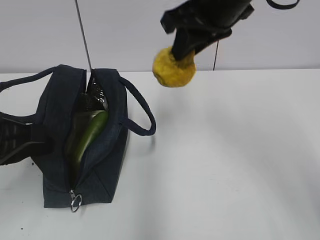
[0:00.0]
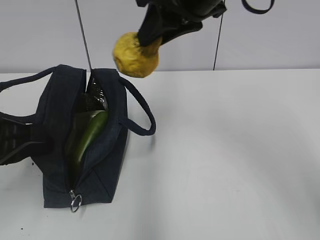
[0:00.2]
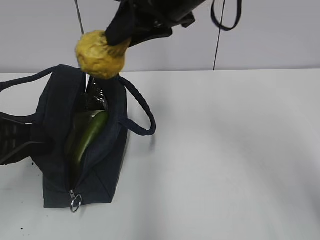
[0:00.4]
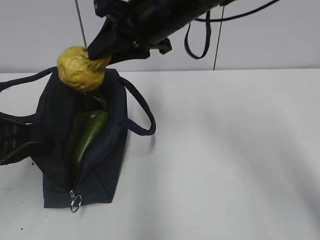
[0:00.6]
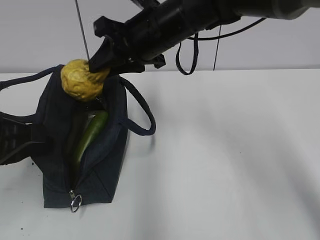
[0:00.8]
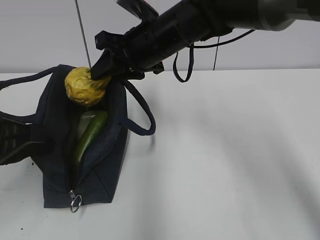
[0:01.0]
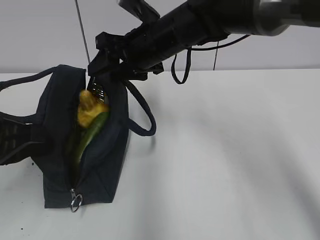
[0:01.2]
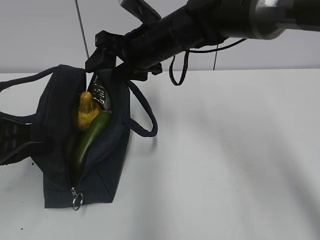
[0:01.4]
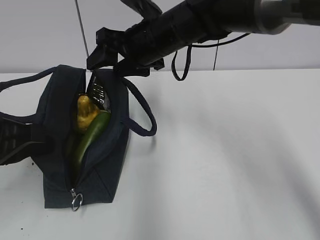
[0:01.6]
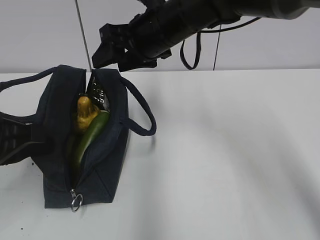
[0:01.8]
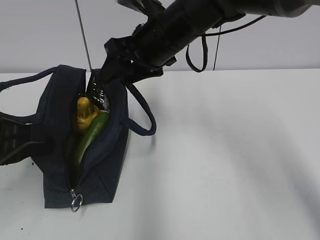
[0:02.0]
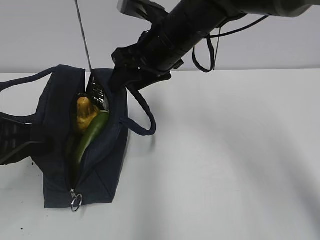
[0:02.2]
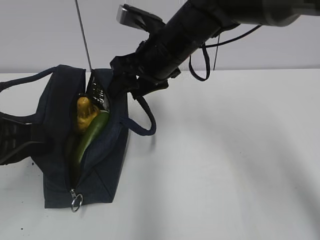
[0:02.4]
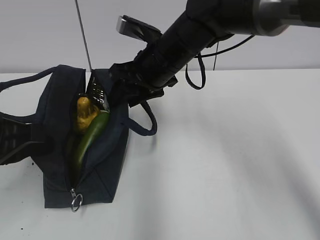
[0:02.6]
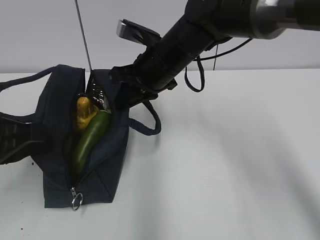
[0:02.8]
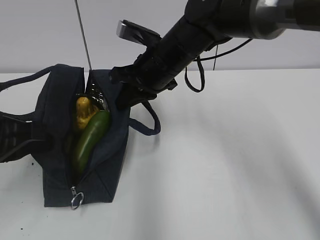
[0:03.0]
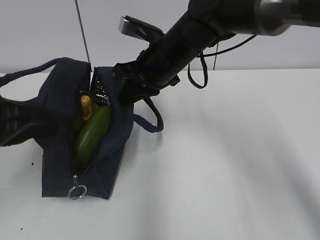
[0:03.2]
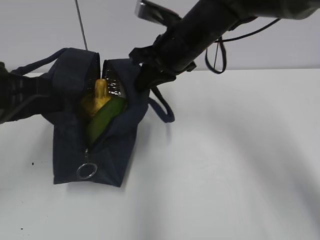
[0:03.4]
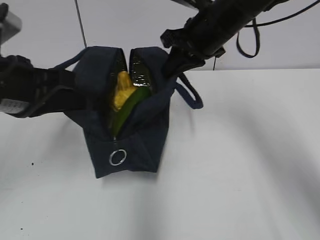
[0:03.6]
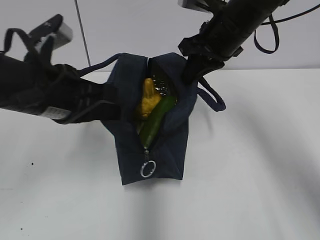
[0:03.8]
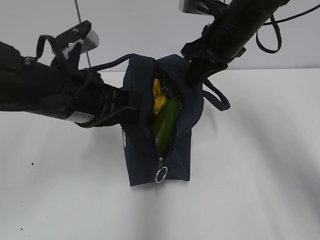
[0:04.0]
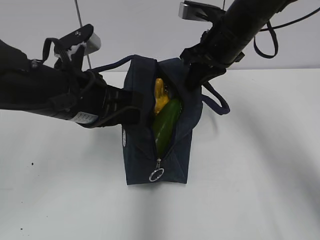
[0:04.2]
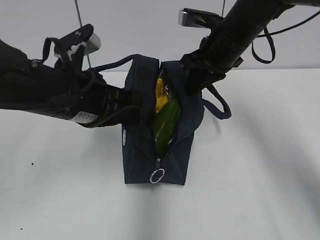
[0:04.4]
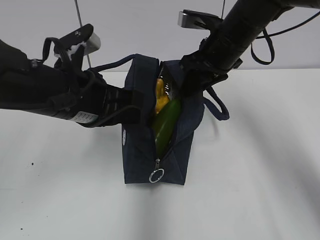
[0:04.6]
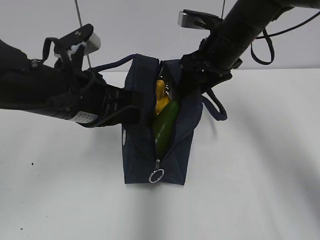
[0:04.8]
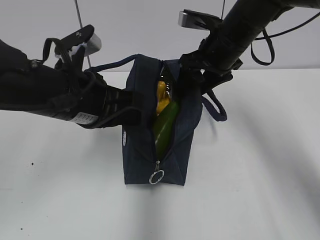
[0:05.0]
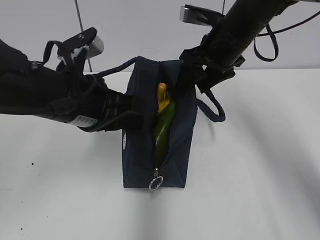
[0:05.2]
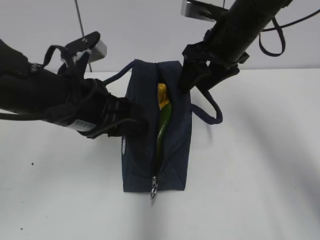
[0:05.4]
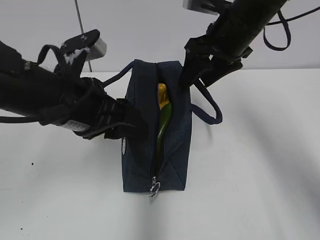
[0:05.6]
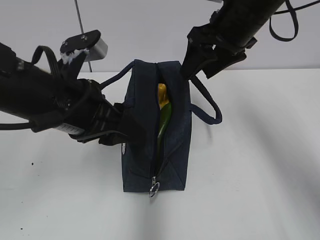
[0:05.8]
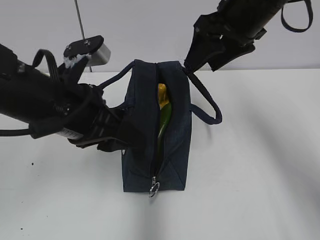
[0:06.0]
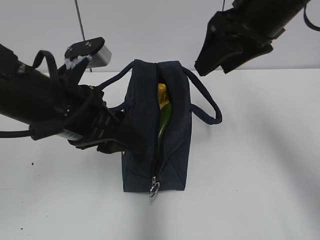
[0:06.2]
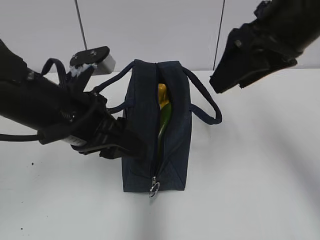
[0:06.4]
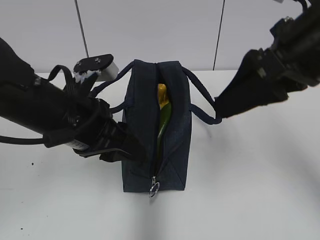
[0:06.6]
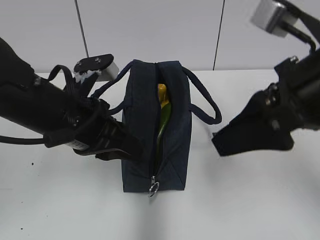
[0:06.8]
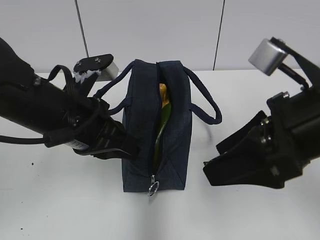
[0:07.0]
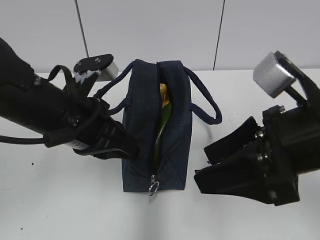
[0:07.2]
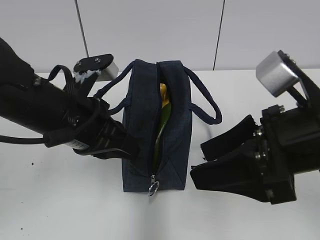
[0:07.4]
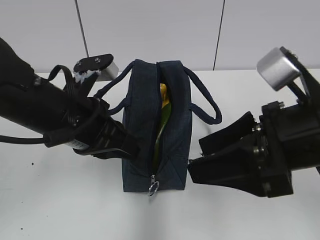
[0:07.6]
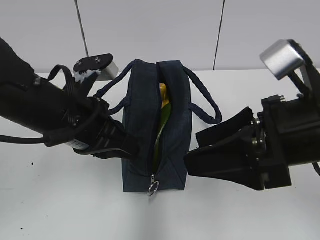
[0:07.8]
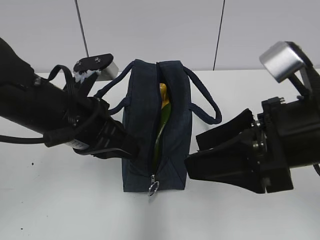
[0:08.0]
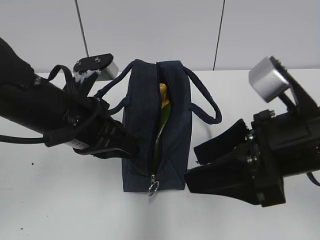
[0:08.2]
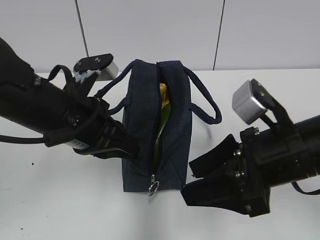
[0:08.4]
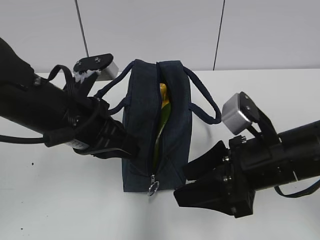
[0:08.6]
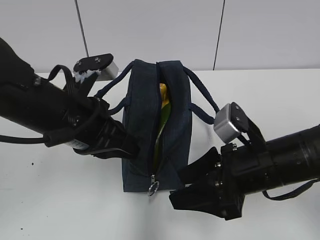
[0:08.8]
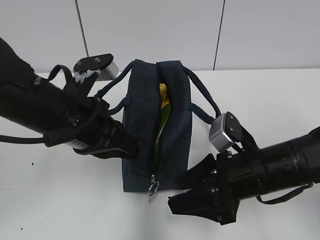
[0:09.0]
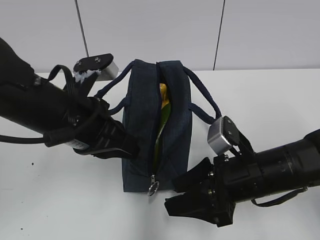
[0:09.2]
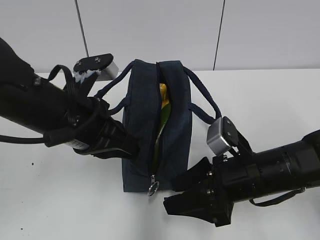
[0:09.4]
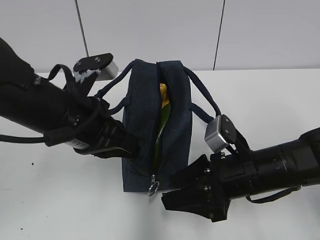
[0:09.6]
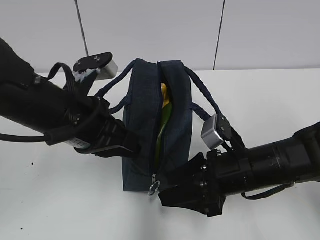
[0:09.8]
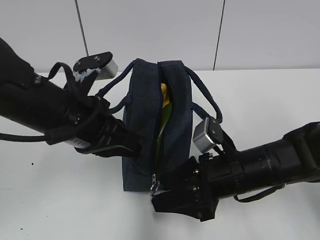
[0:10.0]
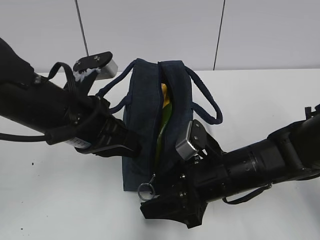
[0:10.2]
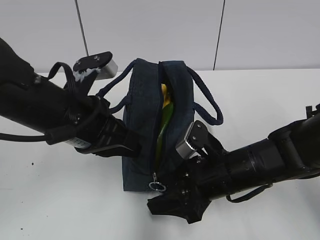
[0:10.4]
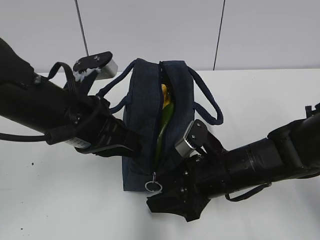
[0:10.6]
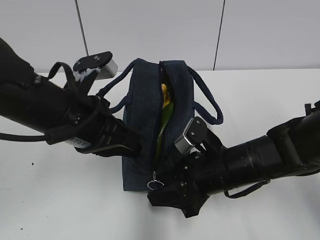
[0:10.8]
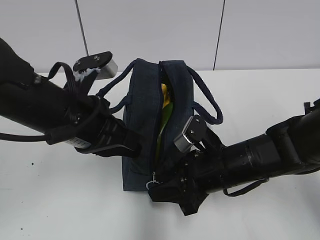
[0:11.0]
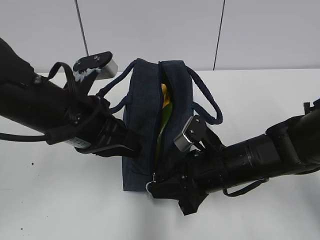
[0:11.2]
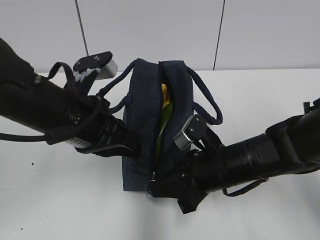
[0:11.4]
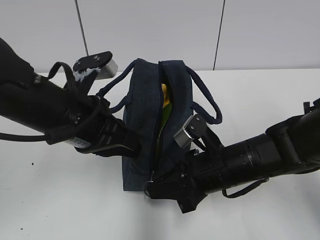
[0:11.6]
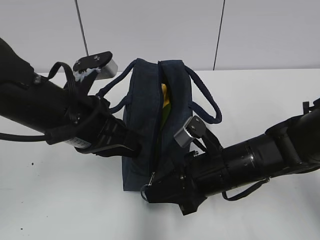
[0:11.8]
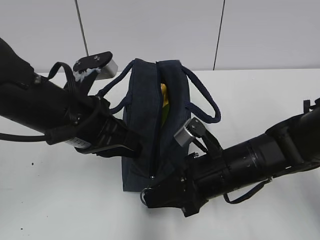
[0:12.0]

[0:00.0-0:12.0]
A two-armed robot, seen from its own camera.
Step, 0:01.6 to 0:02.6: Grab the lunch bag with your right hand.
Step, 0:03.0 to 0:05.4: Move the lunch bag to the right.
0:00.0 to 0:01.6: The right gripper goes some 15 cm downward, to the left and forward, and opens up.
0:01.6 to 0:03.0: The right gripper closes up.
0:03.0 to 0:04.4: The right gripper heads to the right, covering about 10 cm. The left gripper moves to the right and forward, about 10 cm.
0:04.4 to 0:06.0: The left gripper opens its fingers, while the right gripper heads upward, covering roughly 5 cm, and opens its fingers.
0:06.0 to 0:07.6: The left gripper closes its fingers. The right gripper is displaced backward and downward by about 20 cm.
0:07.6 to 0:09.0: The right gripper heads downward, covering approximately 10 cm.
0:09.0 to 0:10.4: The grippers stay close to where they were, moving slightly.
0:10.4 to 0:12.0: The right gripper closes up.

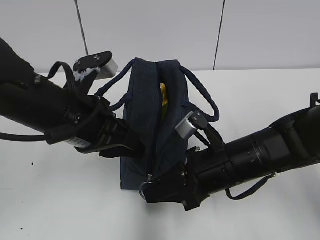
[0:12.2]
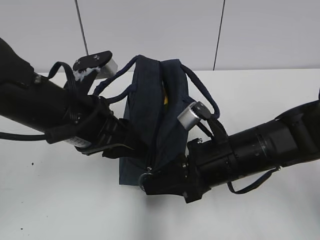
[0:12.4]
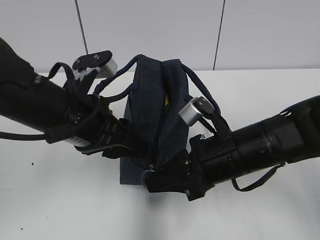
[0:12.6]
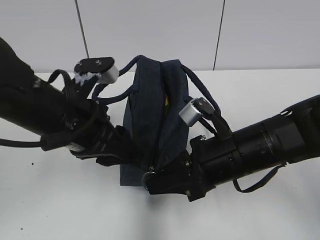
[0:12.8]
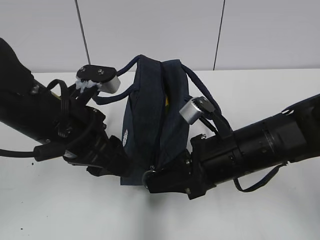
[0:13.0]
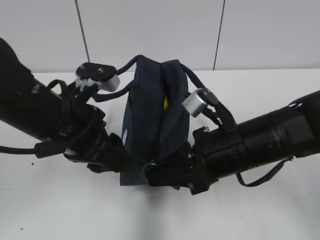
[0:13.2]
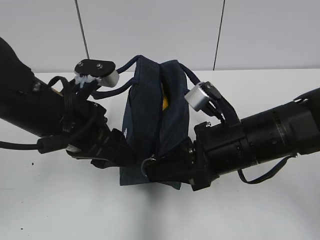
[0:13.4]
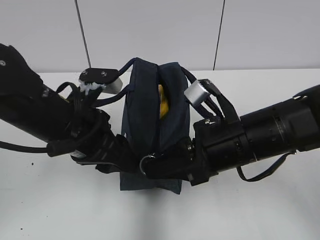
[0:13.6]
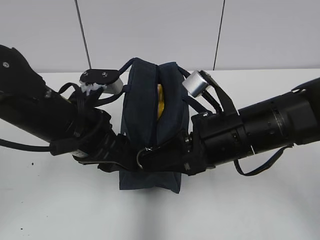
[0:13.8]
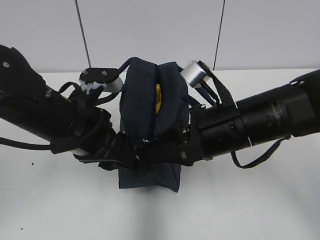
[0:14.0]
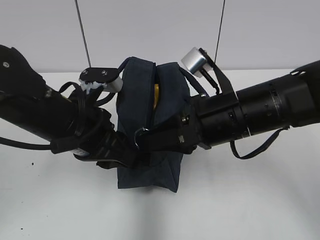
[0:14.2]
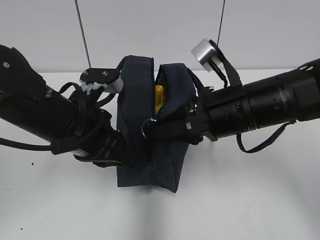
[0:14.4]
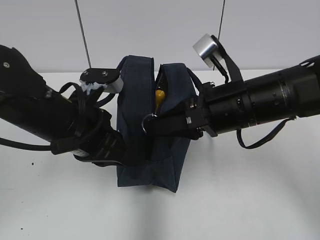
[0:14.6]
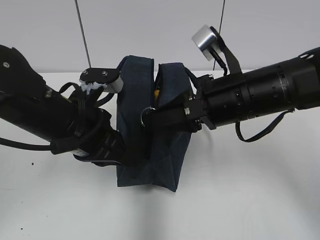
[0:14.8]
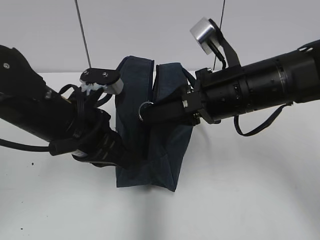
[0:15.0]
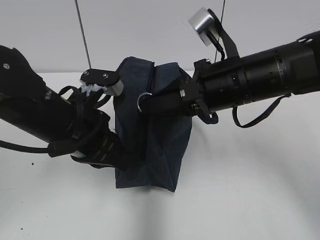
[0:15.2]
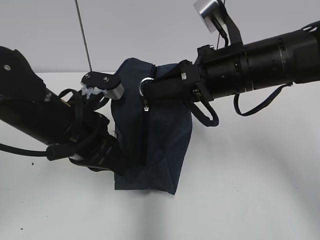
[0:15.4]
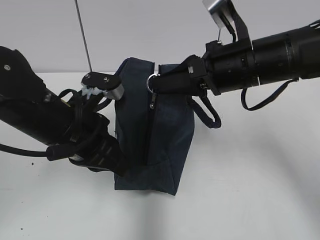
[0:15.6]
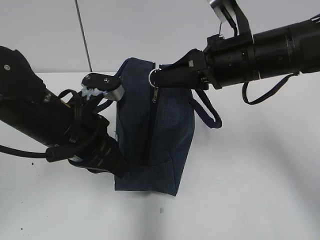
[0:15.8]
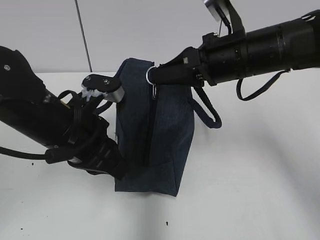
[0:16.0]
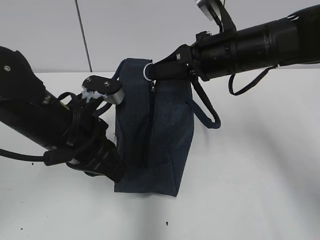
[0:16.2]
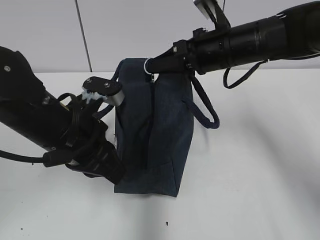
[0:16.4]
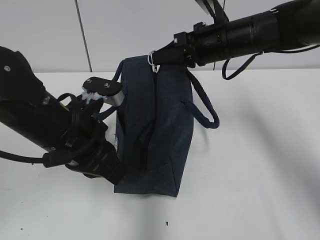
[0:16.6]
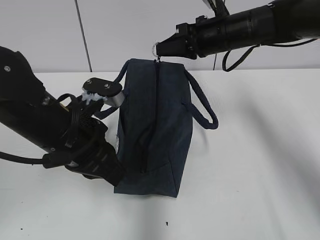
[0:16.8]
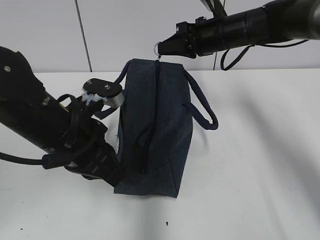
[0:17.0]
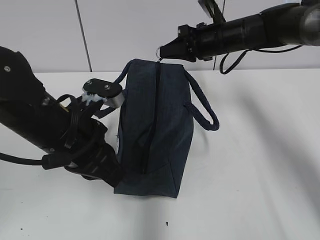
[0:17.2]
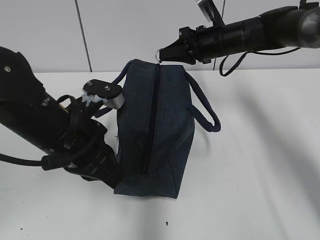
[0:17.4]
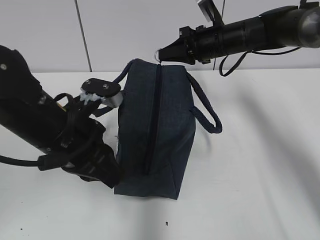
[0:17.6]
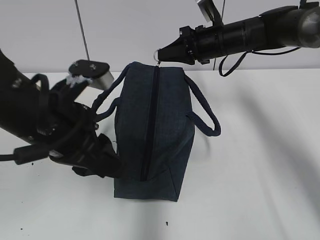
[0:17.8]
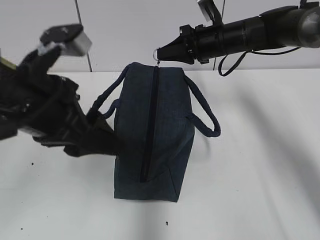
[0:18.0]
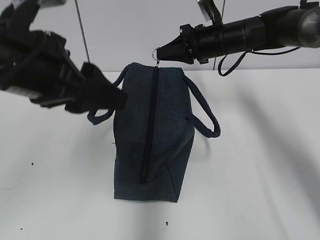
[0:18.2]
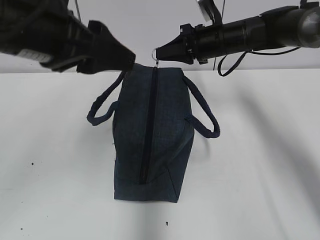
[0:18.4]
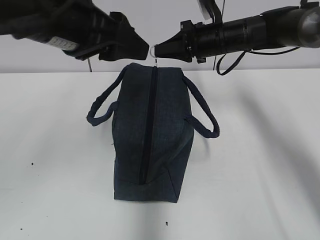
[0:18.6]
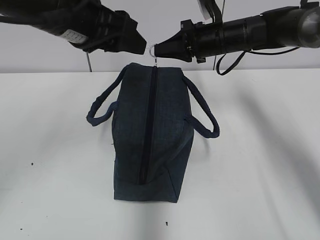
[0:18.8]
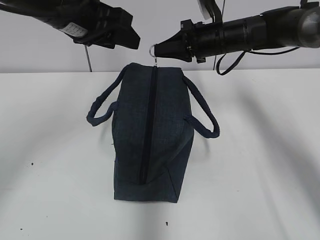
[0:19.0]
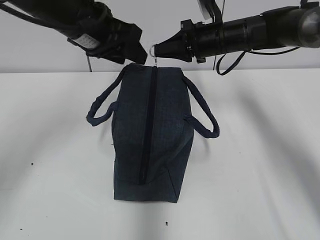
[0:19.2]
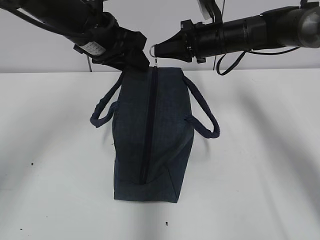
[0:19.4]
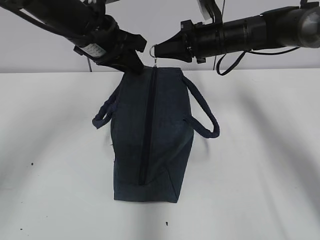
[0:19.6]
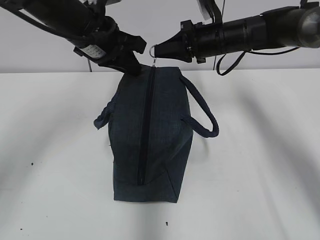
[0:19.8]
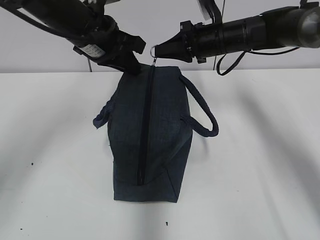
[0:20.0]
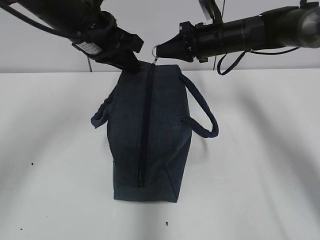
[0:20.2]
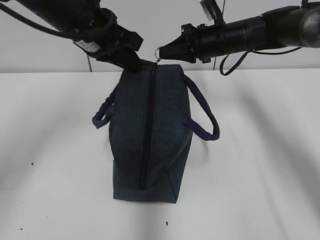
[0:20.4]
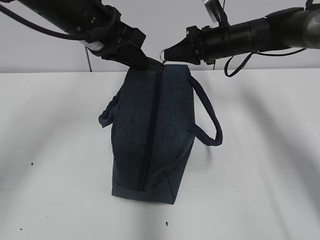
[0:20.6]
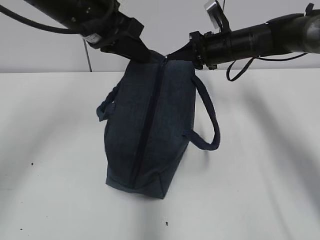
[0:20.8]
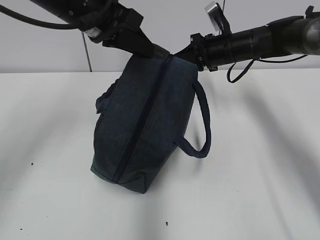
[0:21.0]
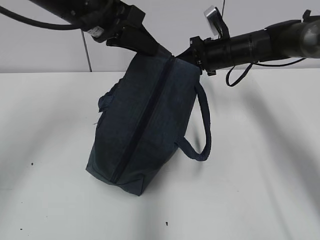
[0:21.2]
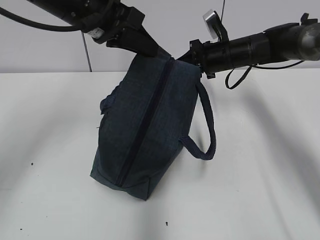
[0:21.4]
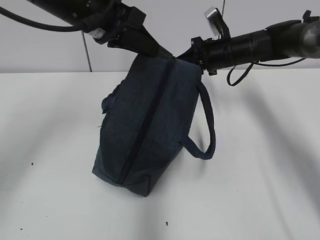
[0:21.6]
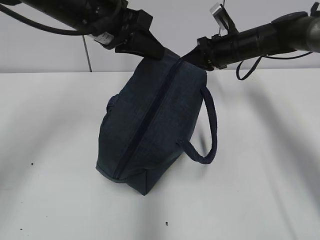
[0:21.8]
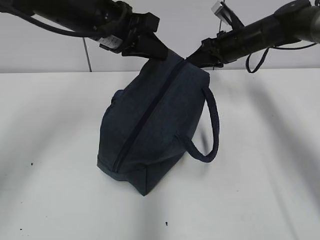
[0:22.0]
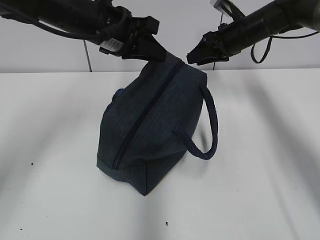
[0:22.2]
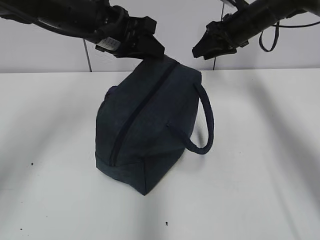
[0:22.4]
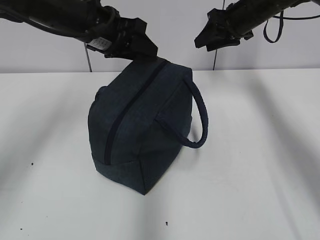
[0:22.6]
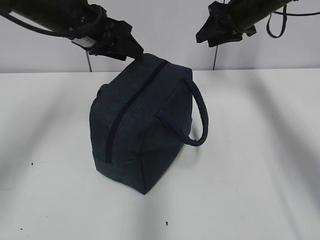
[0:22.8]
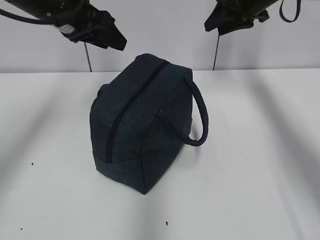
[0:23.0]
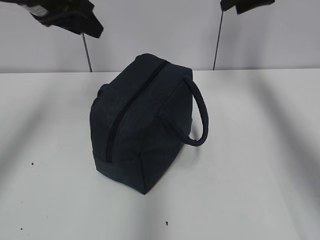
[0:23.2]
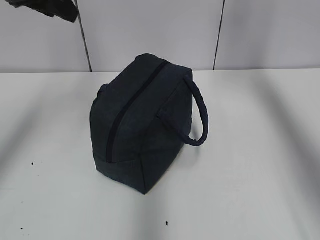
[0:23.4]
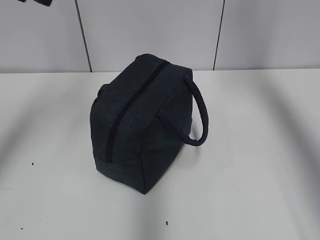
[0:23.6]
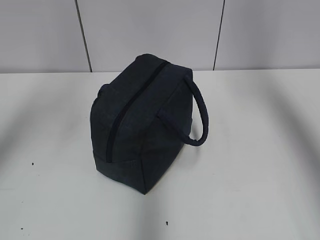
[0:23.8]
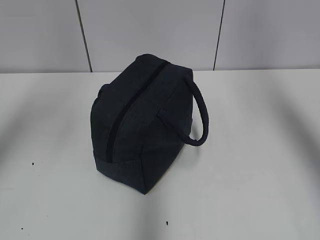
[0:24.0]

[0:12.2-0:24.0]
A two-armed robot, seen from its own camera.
Step, 0:12.2 to 0:21.8: Pull the zipper with your right hand.
Step, 0:22.0 to 0:22.6: Grab the lunch bag with your left hand.
0:12.2 to 0:13.6: The right gripper travels upward by some 5 cm. Meanwhile the left gripper opens up.
0:13.6 to 0:15.2: The right gripper shifts about 5 cm upward. Meanwhile the left gripper closes up.
0:15.2 to 0:16.6: The right gripper goes about 10 cm forward.
0:16.6 to 0:18.2: The right gripper goes approximately 5 cm forward. The left gripper heads upward, covering roughly 10 cm, and opens.
0:18.2 to 0:19.6: The left gripper shifts about 15 cm forward, and closes up.
0:19.6 to 0:21.0: The left gripper moves some 5 cm.
0:21.0 to 0:22.6: The left gripper shifts approximately 5 cm forward, and opens up. The right gripper is displaced upward by roughly 5 cm, and opens.
0:22.6 to 0:24.0: The left gripper is displaced upward, backward and to the left by approximately 25 cm. Meanwhile the right gripper is displaced backward and upward by approximately 35 cm.
